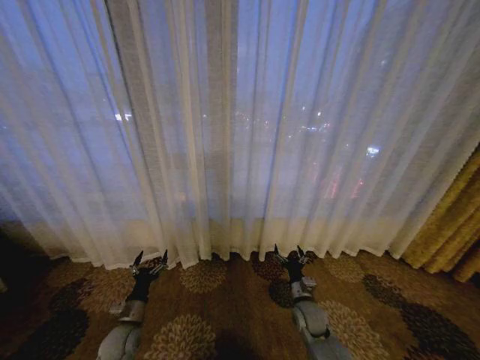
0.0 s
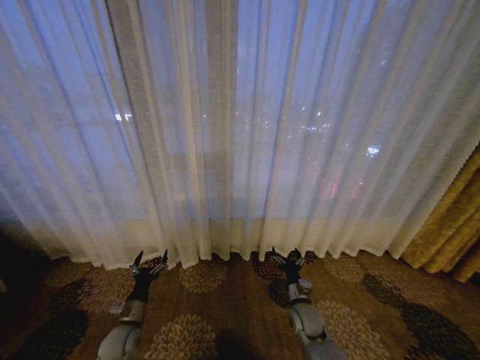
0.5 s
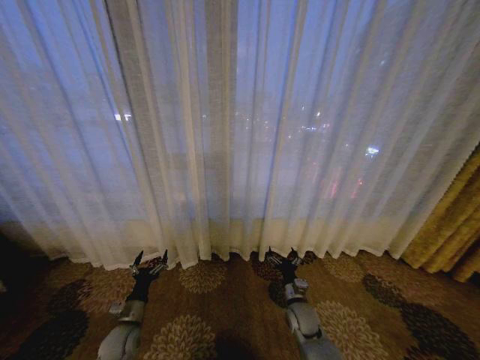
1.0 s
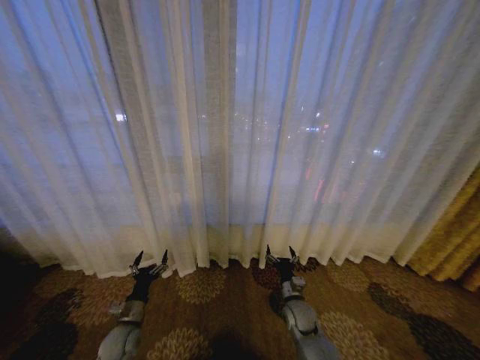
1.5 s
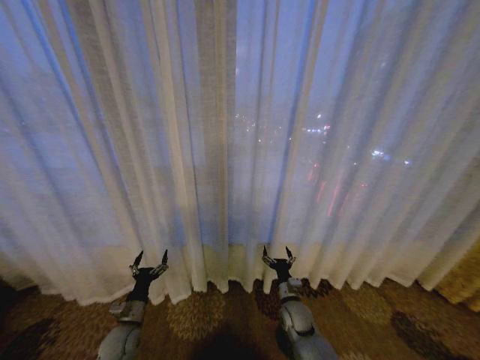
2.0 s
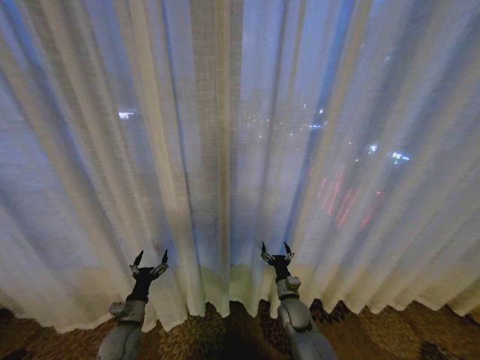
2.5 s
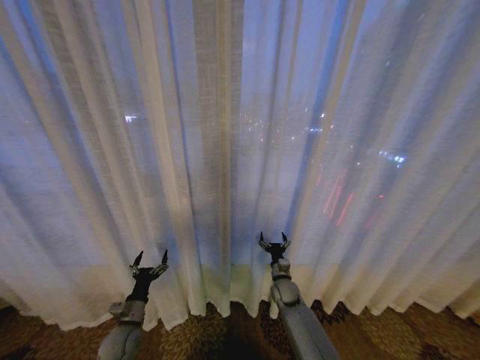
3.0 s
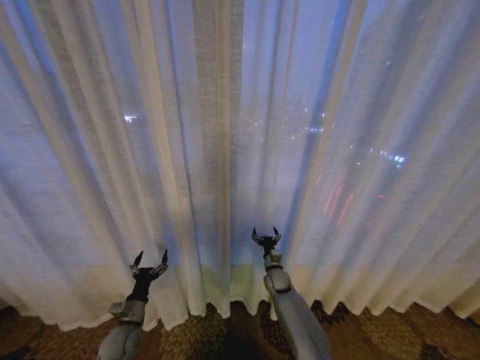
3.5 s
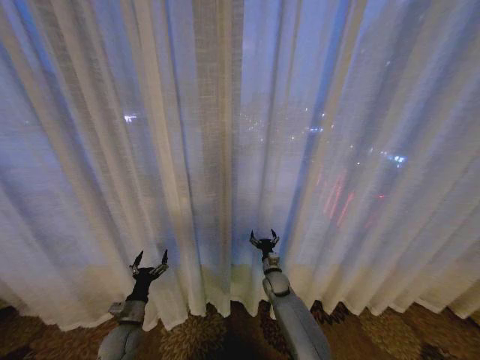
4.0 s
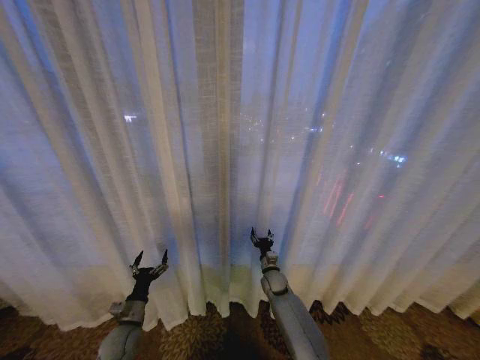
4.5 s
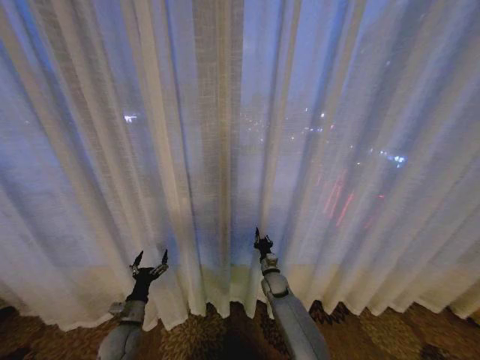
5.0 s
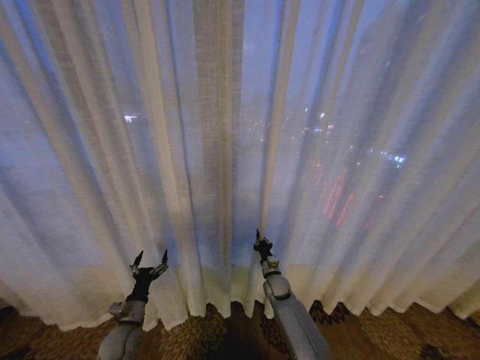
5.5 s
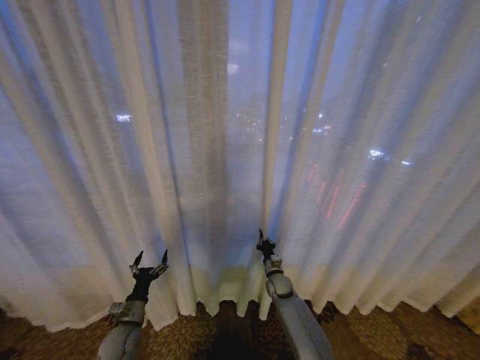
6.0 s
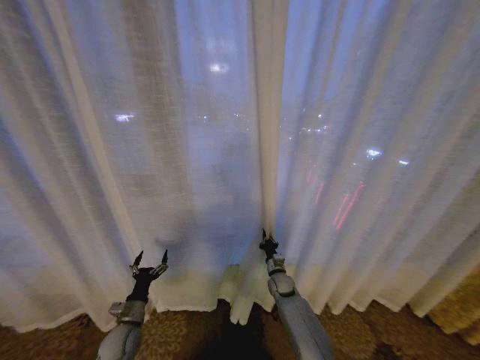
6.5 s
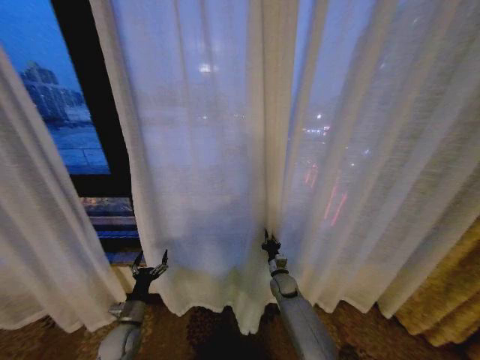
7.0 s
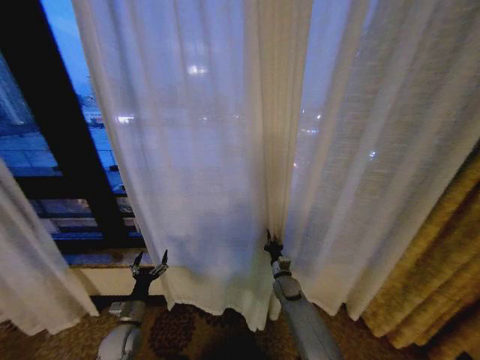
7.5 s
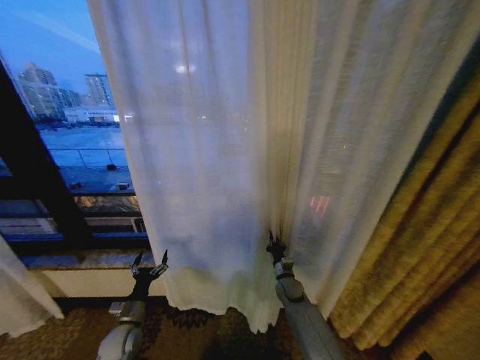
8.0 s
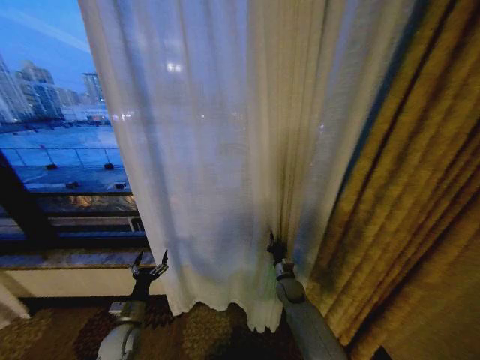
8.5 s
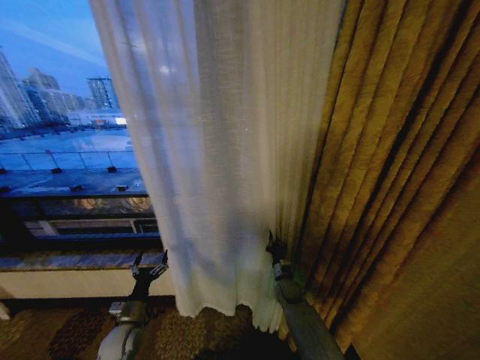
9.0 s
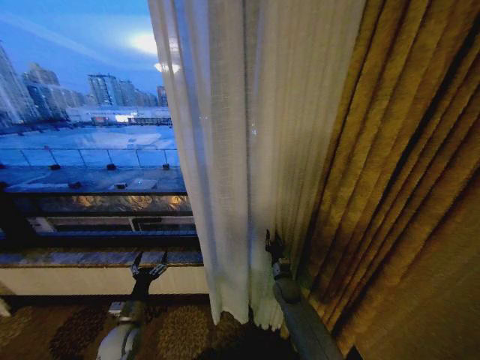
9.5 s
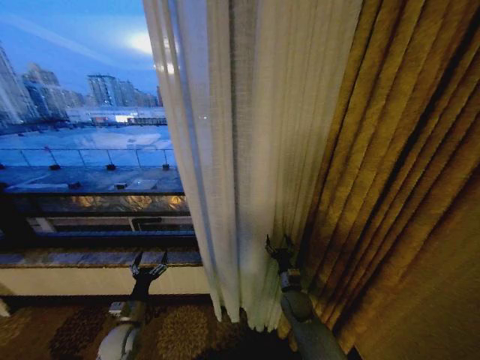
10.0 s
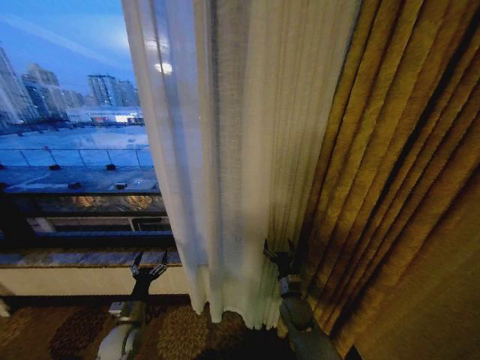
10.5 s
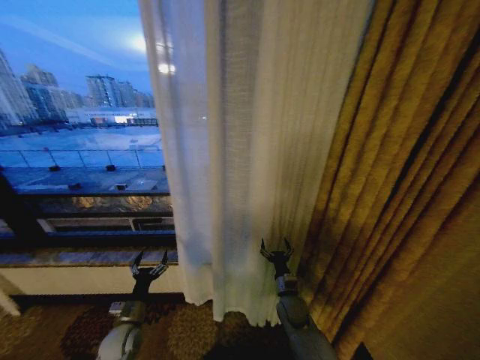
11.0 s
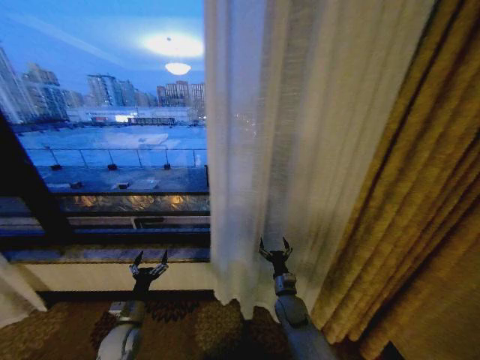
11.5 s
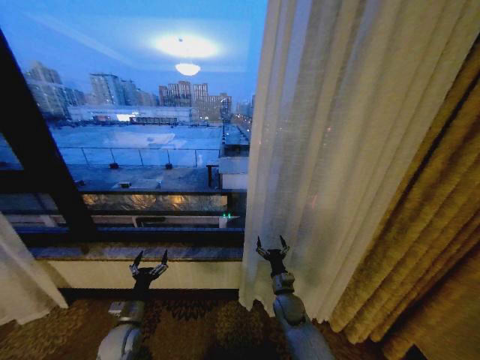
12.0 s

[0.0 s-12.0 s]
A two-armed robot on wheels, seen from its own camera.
Task of the whole recording: Open the curtains by pulling them apart, changing their state from closed to fully open.
2.0 to 4.0 s: The right gripper heads forward, covering some 10 cm.
4.0 to 6.0 s: The right gripper closes its fingers.
8.0 to 10.0 s: The right gripper is displaced backward by about 5 cm, and opens up.

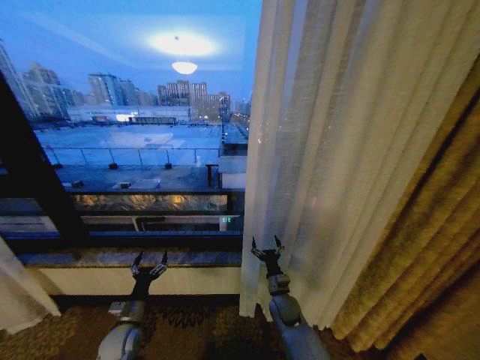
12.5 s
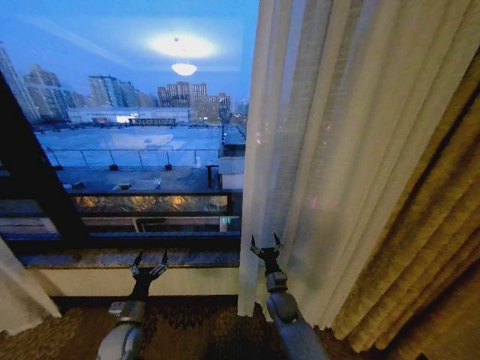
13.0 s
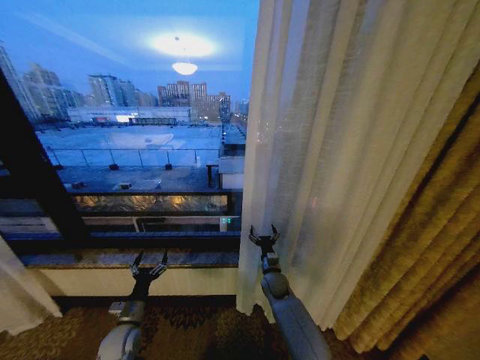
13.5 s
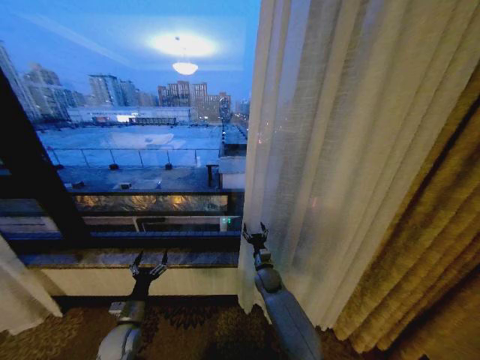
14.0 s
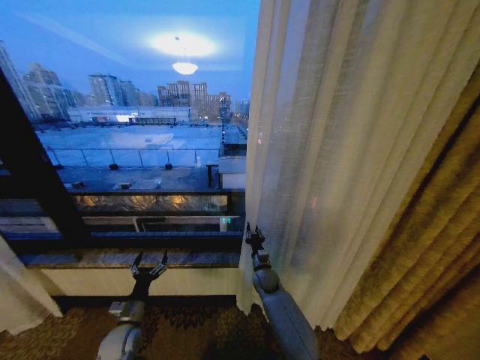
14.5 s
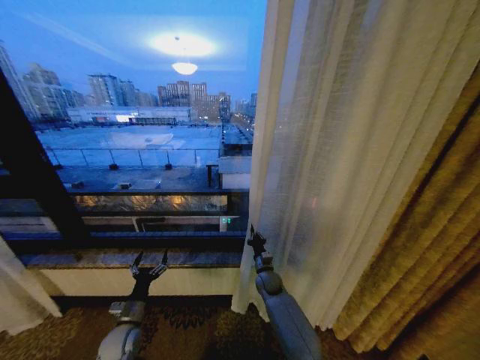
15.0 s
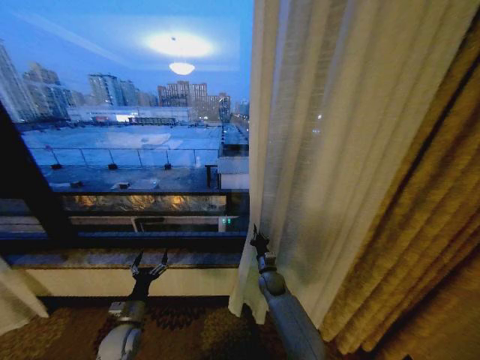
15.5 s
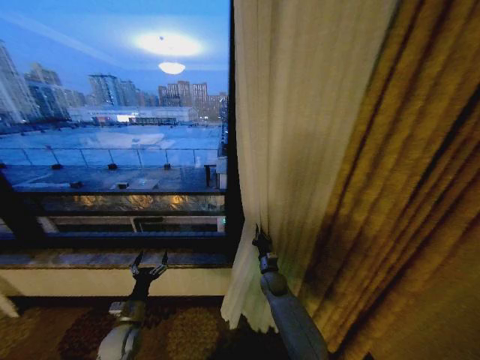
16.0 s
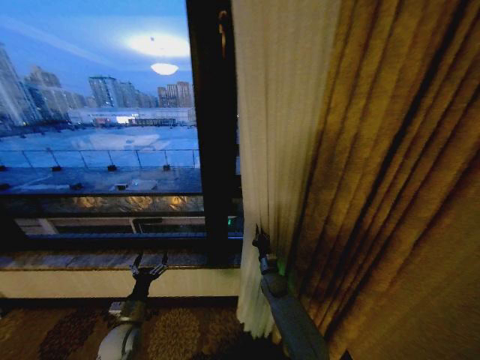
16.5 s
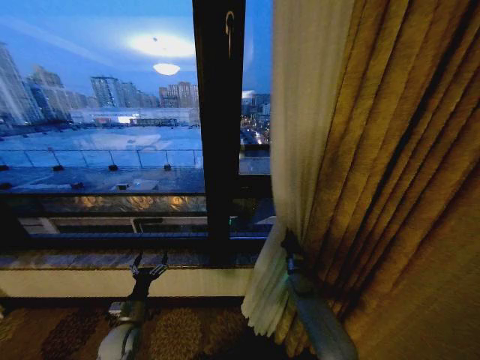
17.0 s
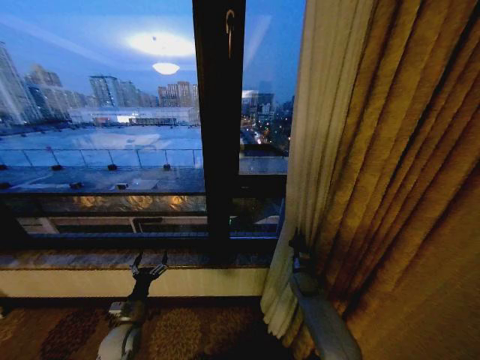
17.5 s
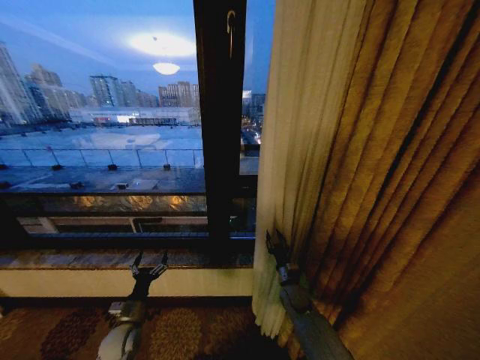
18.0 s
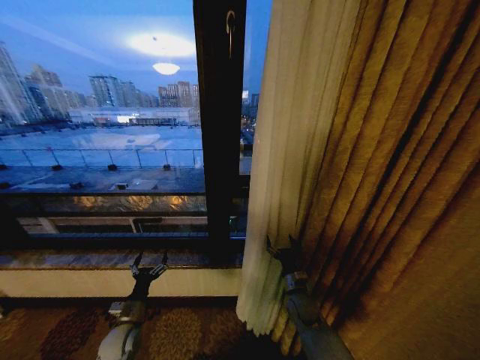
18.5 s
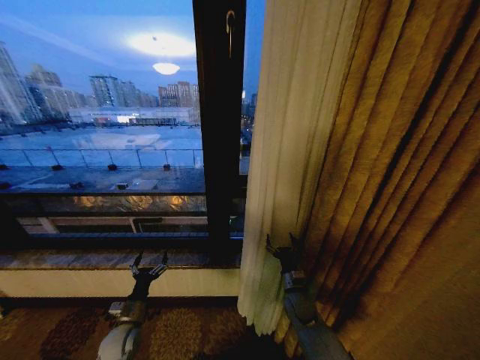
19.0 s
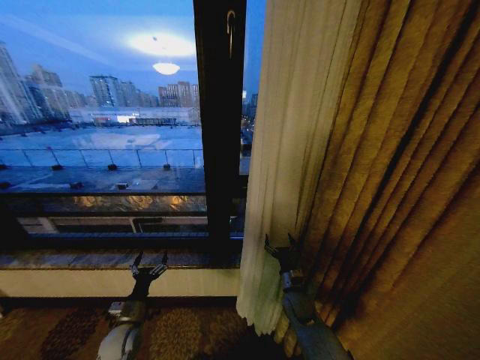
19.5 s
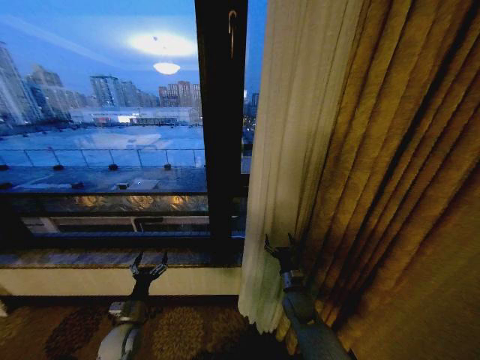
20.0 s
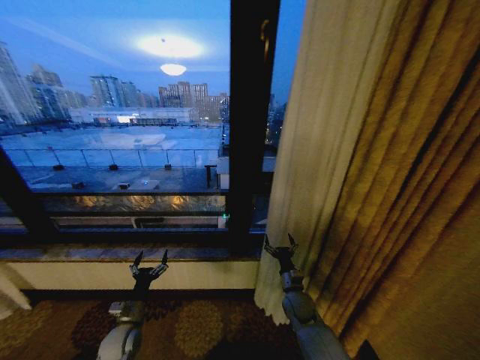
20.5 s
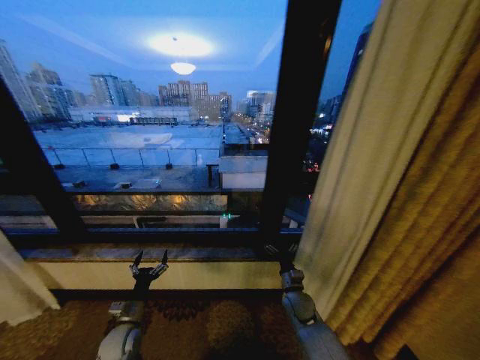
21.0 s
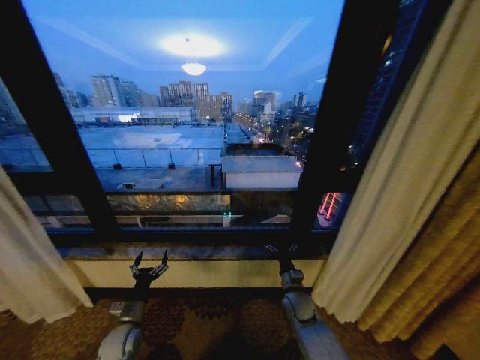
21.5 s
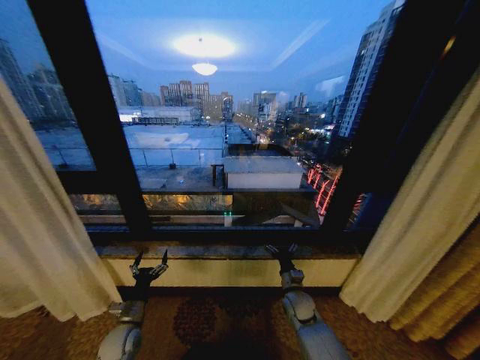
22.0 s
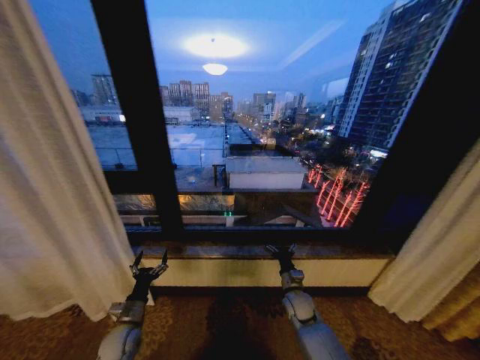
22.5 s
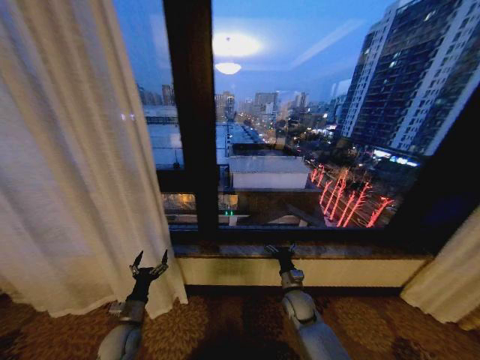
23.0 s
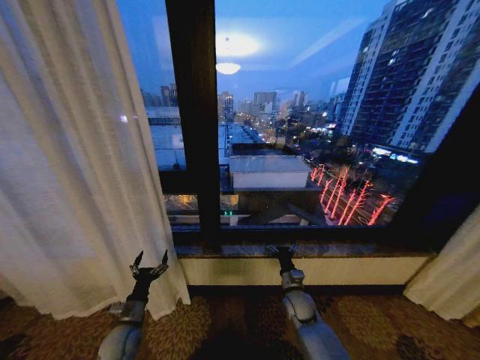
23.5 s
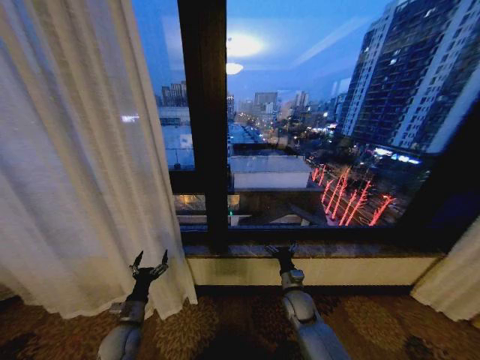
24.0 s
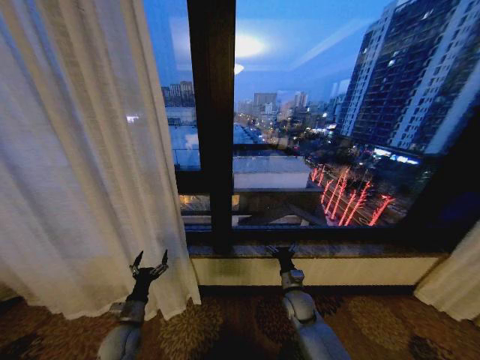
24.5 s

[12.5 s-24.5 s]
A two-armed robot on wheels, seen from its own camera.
Task of the whole recording: Open the curtains by pulling them apart, changing their state from closed to fully open.
12.5 to 14.5 s: The right gripper travels forward by roughly 10 cm, and closes.
16.5 to 18.5 s: The right gripper heads backward and to the right, covering approximately 10 cm, and opens.

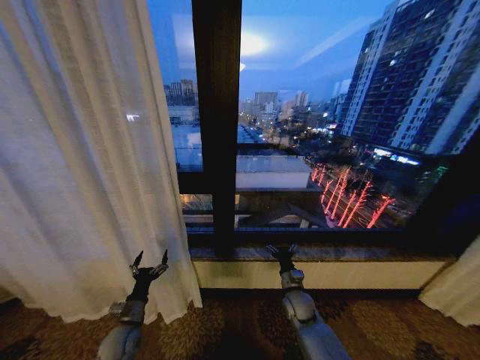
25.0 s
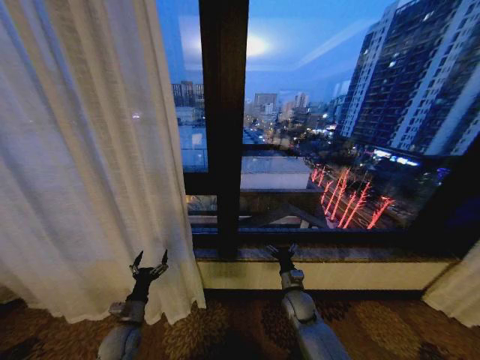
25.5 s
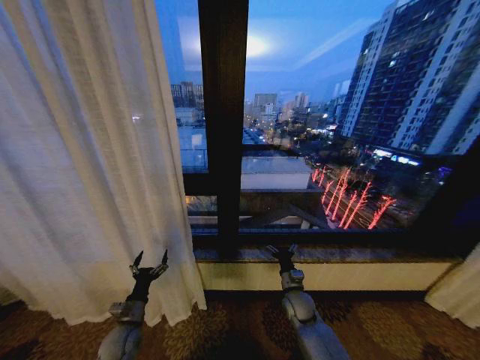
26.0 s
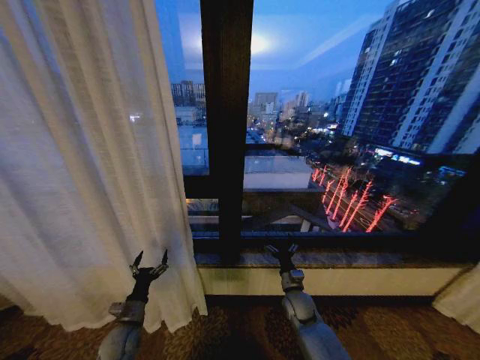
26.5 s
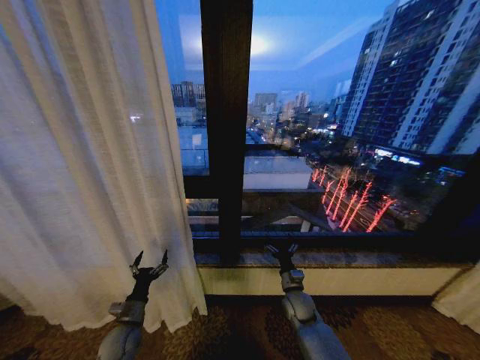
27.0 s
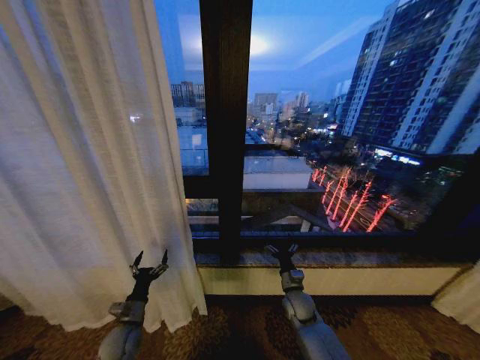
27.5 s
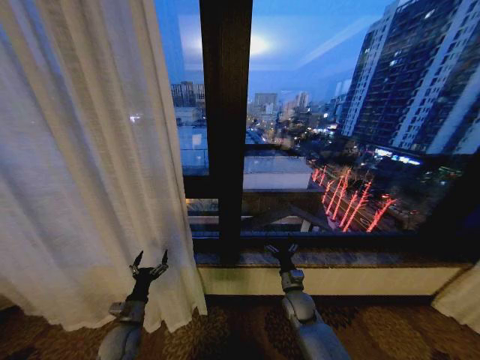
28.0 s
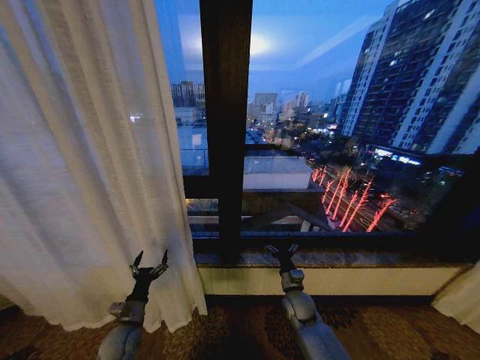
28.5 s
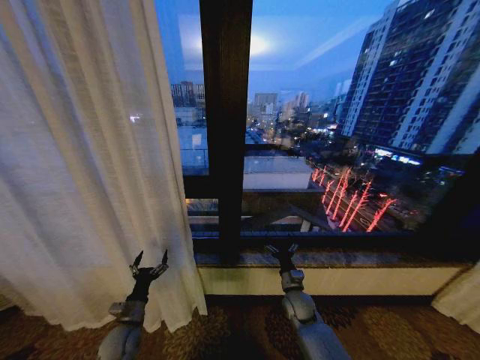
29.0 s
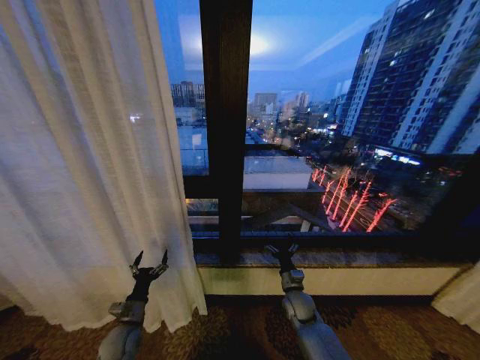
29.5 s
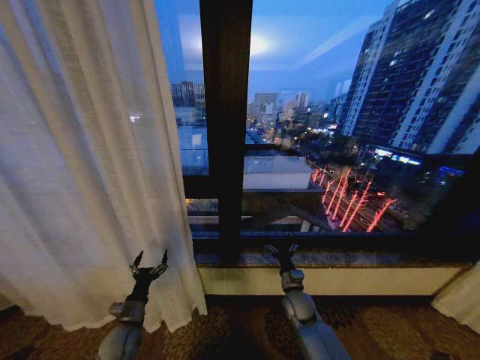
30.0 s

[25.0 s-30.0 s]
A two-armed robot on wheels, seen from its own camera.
Task of the whole recording: Open the curtains by pulling them apart, changing their state from closed to fully open.
25.0 to 30.0 s: Both grippers stay put.
